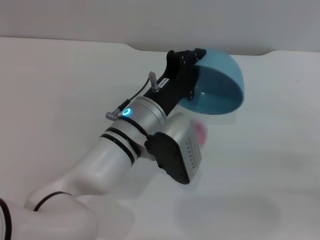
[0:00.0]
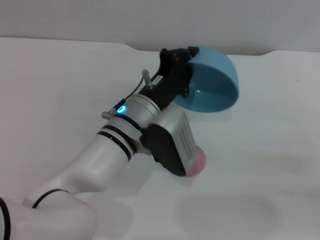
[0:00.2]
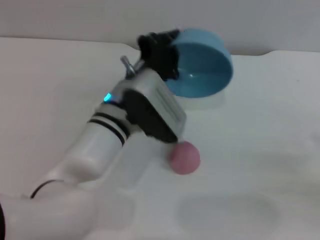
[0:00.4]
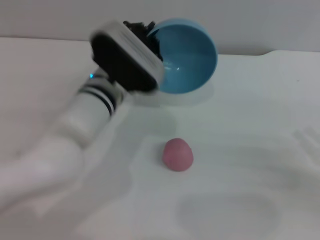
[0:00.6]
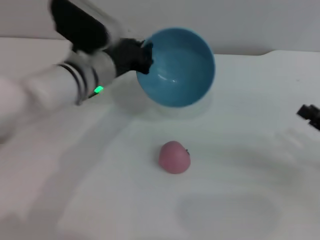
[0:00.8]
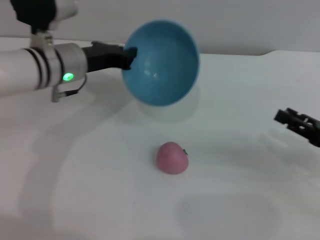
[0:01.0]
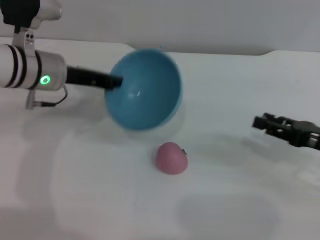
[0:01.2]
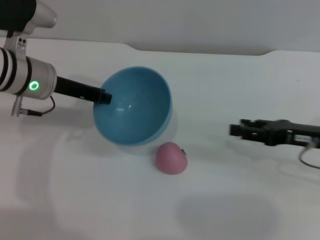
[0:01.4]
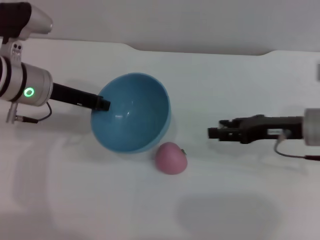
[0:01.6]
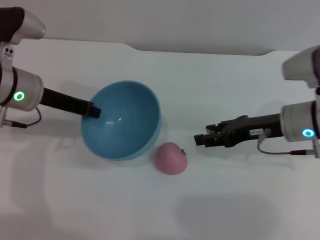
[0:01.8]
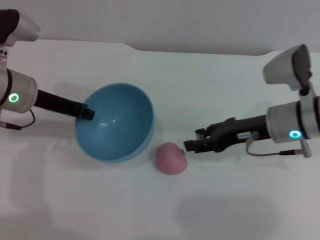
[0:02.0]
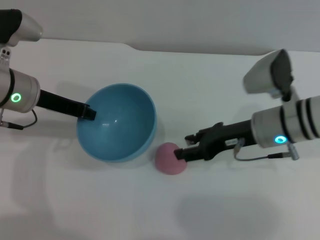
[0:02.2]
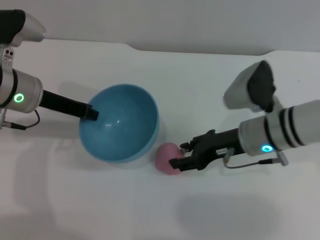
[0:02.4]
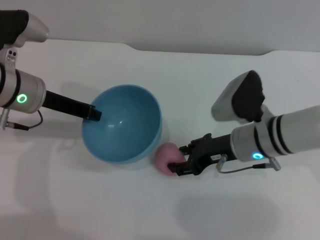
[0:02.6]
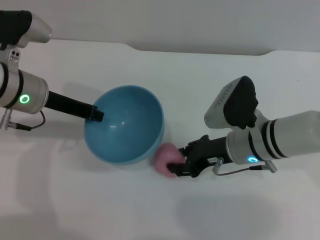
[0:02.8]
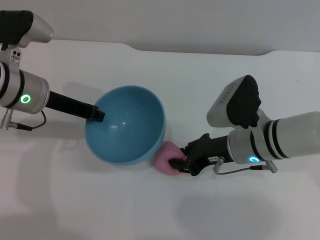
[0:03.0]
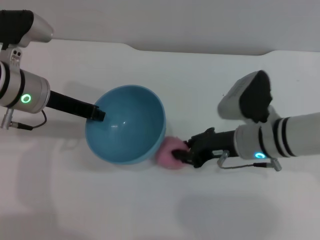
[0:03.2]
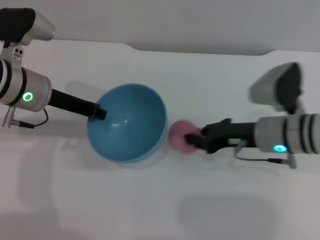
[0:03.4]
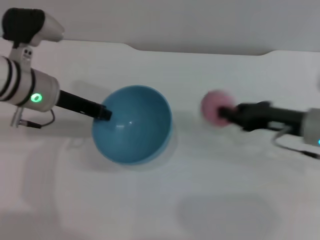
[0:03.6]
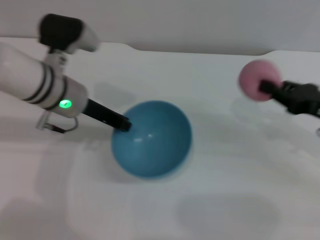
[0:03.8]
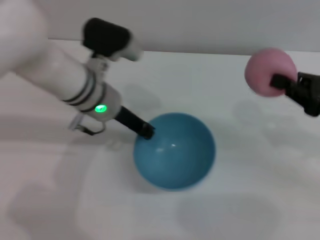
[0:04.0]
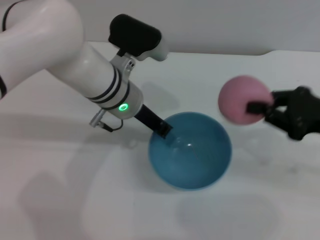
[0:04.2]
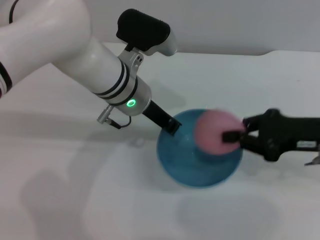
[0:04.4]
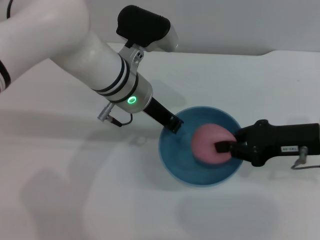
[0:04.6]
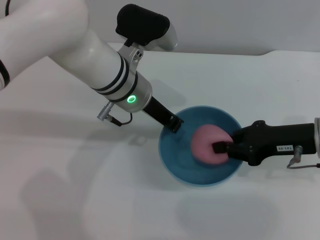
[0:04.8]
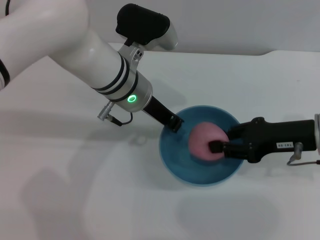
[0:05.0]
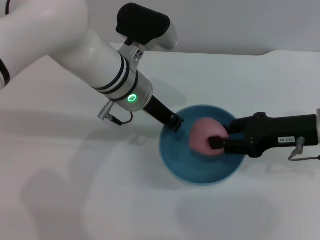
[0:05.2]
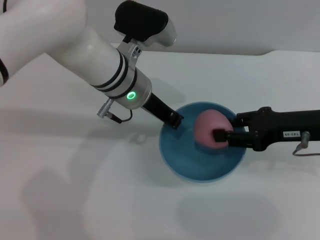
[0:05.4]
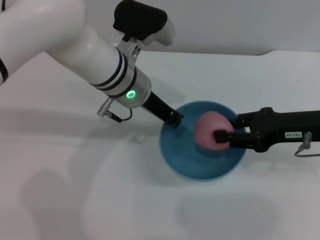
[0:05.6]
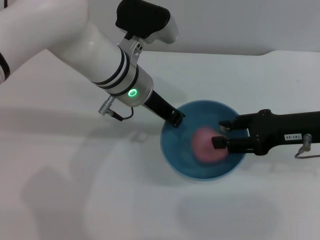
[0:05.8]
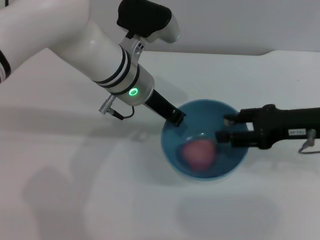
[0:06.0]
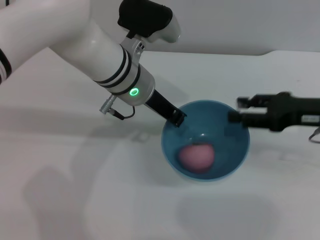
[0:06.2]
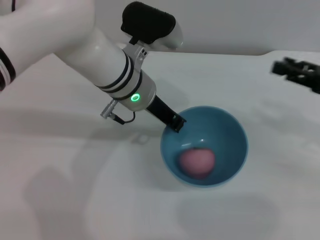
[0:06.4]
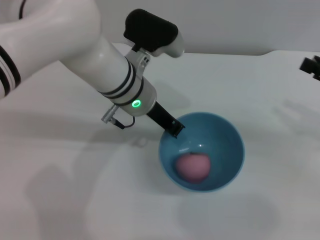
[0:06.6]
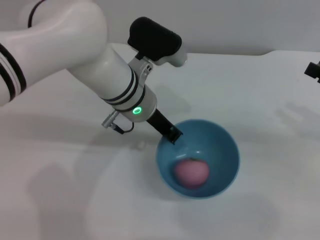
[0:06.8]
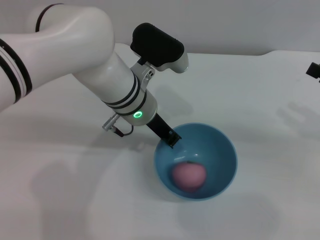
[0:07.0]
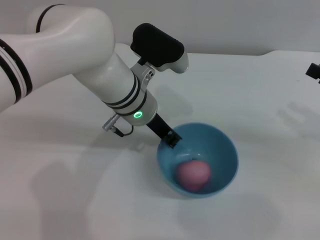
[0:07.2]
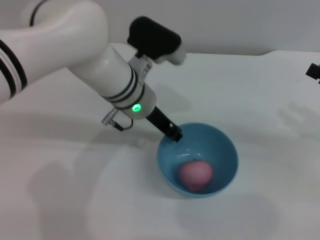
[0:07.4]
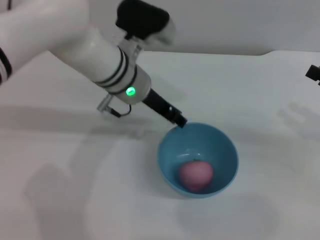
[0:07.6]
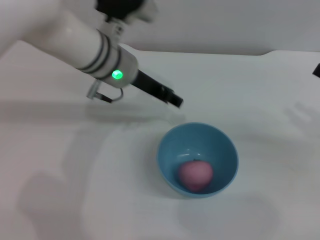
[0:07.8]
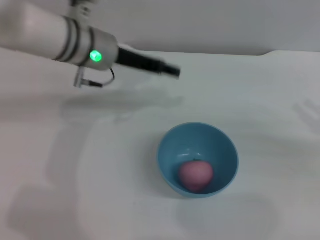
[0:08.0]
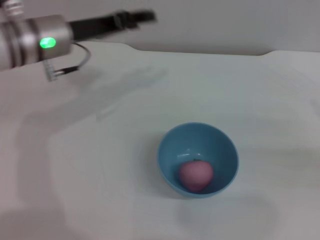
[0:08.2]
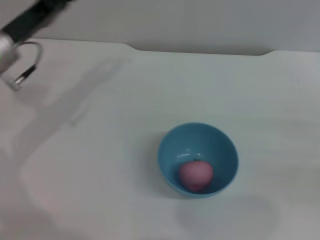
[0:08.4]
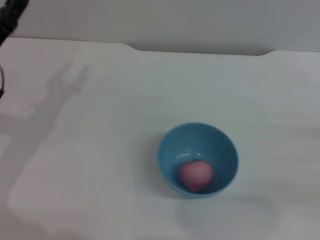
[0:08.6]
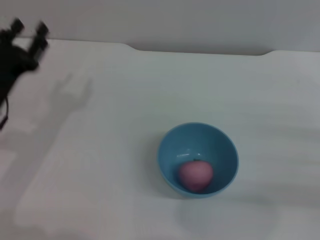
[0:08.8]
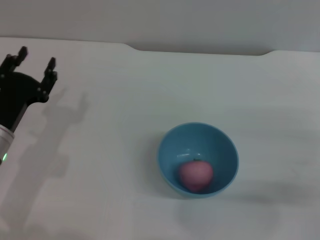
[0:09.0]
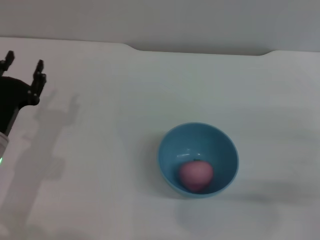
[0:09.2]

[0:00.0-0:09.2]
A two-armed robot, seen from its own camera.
Task of the whole recording: put the peach into the blue bowl and pour it out repeatedly.
Step, 0:00.4 to 0:03.4: Pick up the peach with the right gripper.
Step, 0:03.6 to 0:06.0: Place the peach into the bowl.
Step, 0:06.2 to 0:07.4: Place the bowl on the table.
0:00.0 to 0:01.6: The right gripper is displaced to the left and forward by approximately 20 cm. The left gripper heads to the left, covering approximately 15 cm.
0:01.6 to 0:03.0: The right gripper goes approximately 10 cm to the left.
0:03.0 to 0:04.6: The right gripper heads to the right and upward, covering about 15 cm, and closes up. Meanwhile the left gripper heads to the right, covering roughly 15 cm.
0:04.6 to 0:06.2: The right gripper opens.
0:06.2 to 0:07.6: The right gripper heads to the right, covering roughly 5 cm; the left gripper opens its fingers.
0:07.6 to 0:09.2: The right gripper is displaced downward by approximately 5 cm. Meanwhile the left gripper shifts approximately 25 cm to the left, backward and downward.
